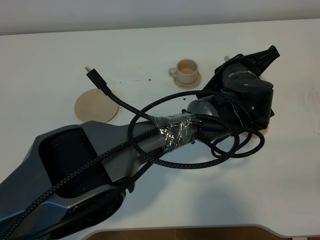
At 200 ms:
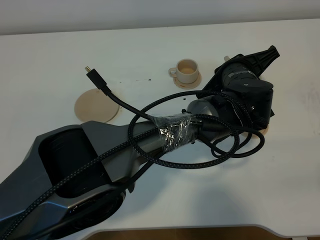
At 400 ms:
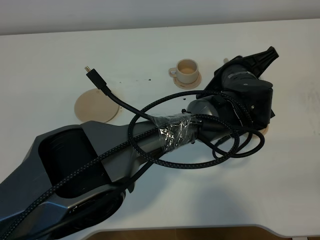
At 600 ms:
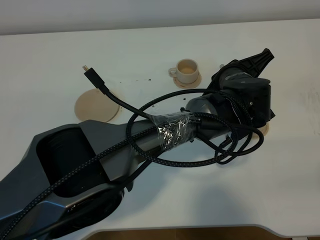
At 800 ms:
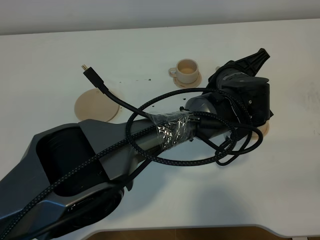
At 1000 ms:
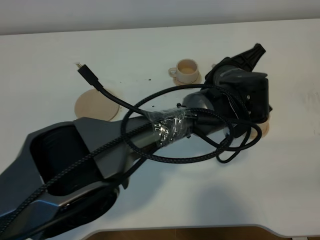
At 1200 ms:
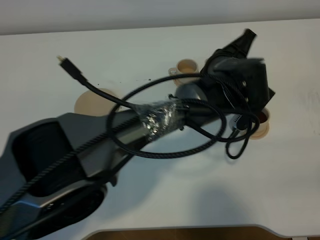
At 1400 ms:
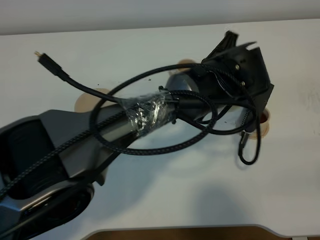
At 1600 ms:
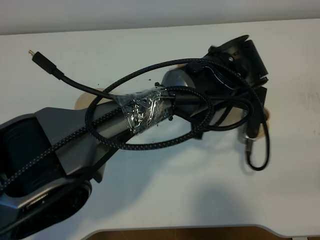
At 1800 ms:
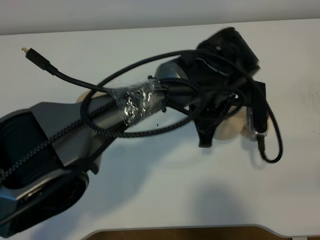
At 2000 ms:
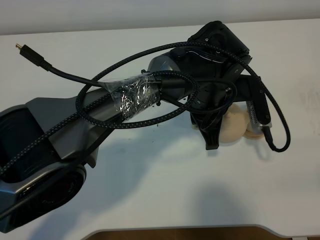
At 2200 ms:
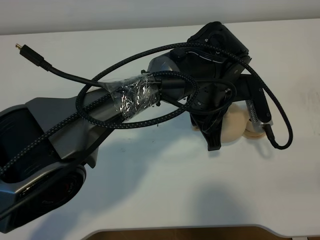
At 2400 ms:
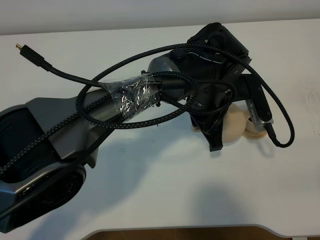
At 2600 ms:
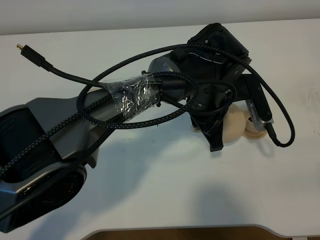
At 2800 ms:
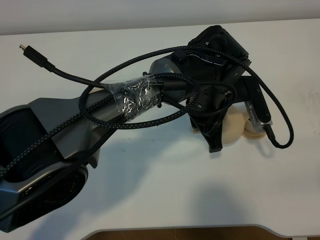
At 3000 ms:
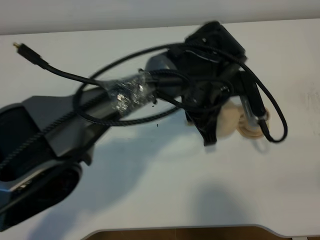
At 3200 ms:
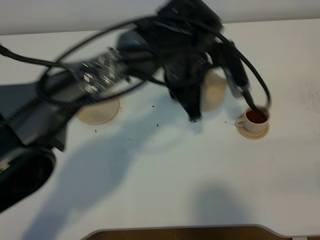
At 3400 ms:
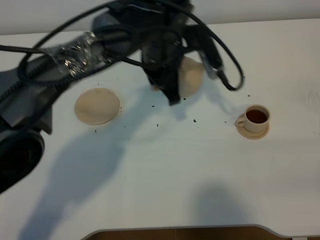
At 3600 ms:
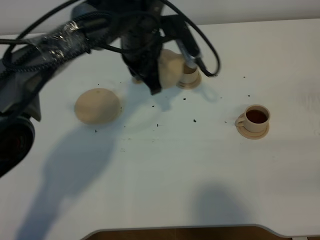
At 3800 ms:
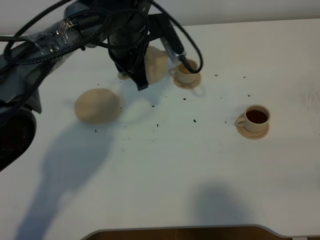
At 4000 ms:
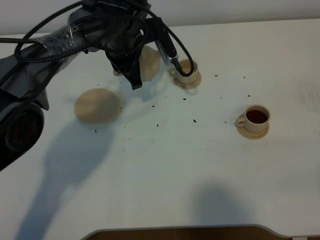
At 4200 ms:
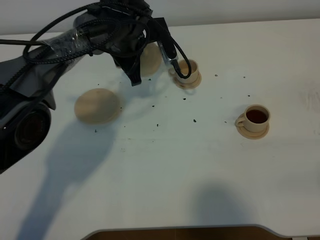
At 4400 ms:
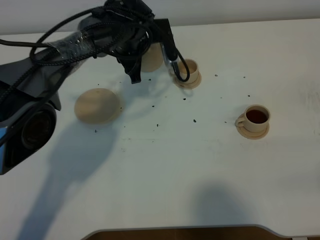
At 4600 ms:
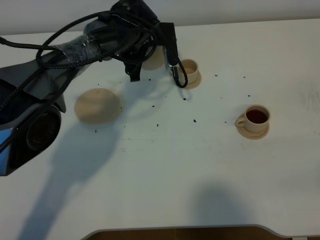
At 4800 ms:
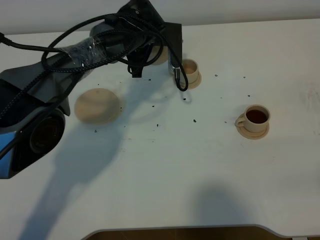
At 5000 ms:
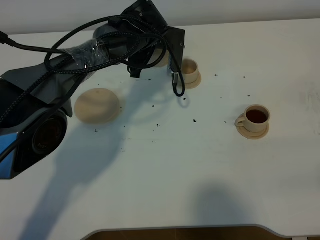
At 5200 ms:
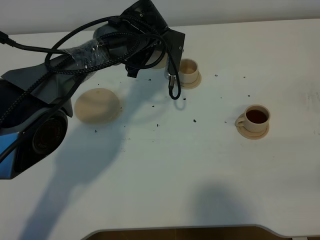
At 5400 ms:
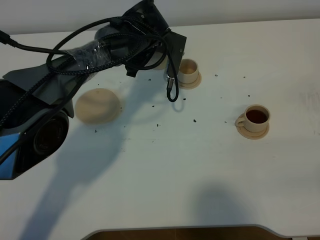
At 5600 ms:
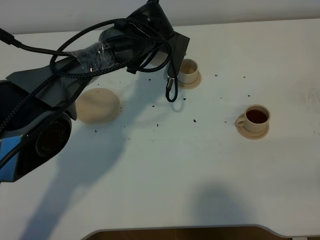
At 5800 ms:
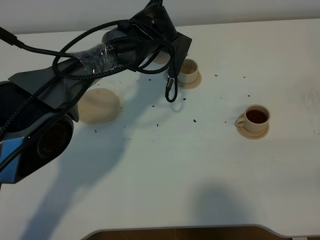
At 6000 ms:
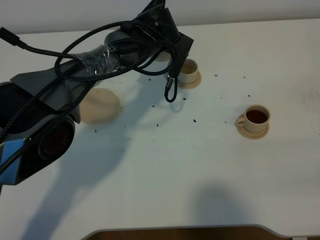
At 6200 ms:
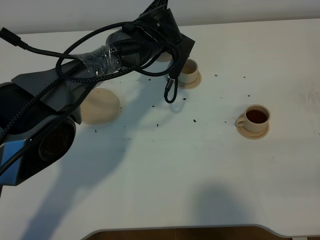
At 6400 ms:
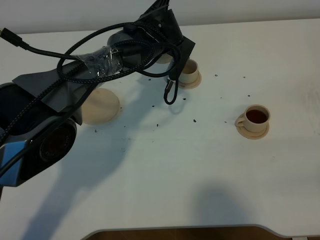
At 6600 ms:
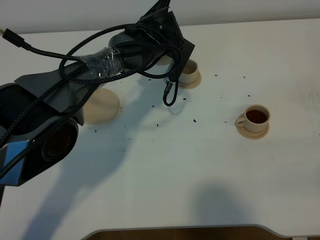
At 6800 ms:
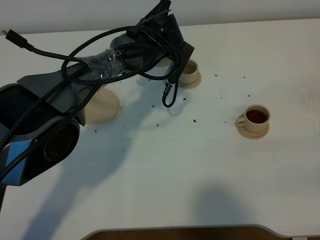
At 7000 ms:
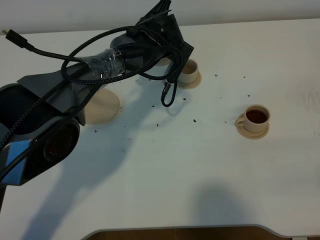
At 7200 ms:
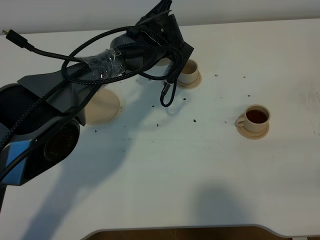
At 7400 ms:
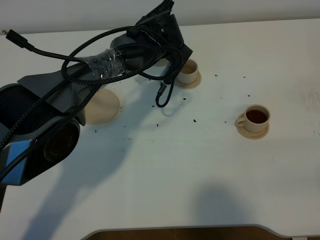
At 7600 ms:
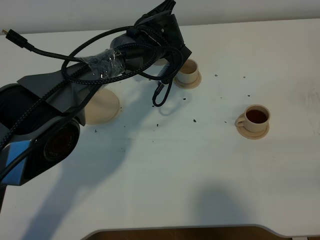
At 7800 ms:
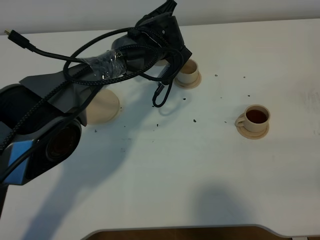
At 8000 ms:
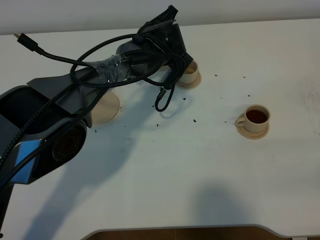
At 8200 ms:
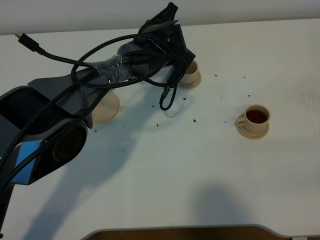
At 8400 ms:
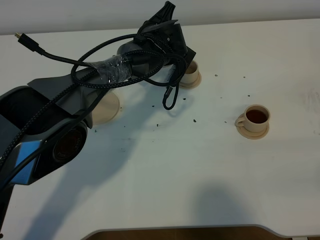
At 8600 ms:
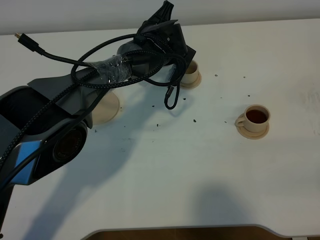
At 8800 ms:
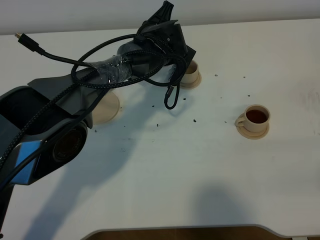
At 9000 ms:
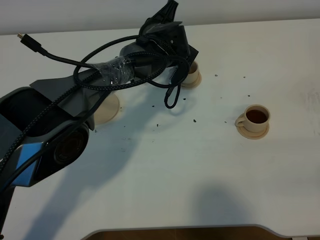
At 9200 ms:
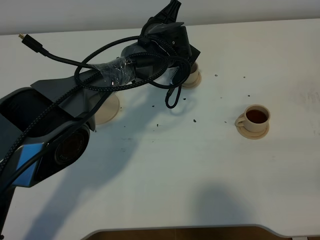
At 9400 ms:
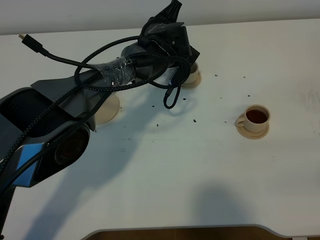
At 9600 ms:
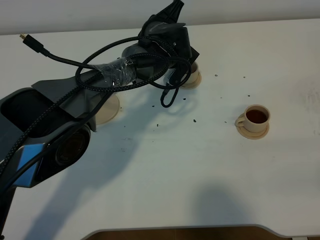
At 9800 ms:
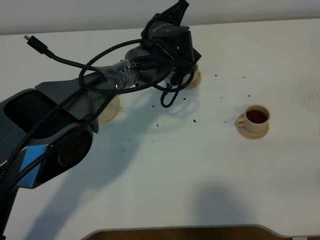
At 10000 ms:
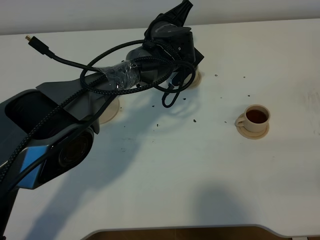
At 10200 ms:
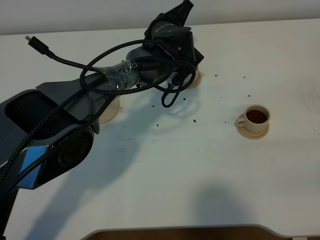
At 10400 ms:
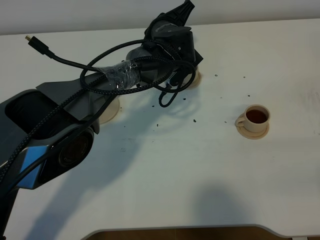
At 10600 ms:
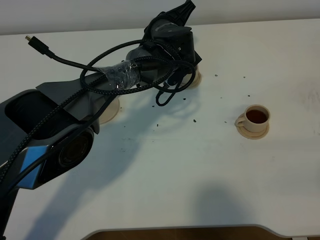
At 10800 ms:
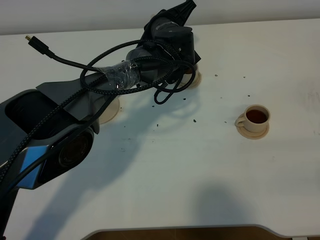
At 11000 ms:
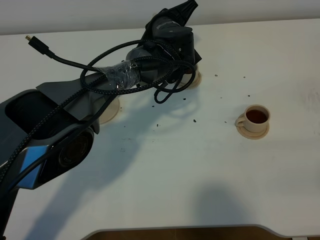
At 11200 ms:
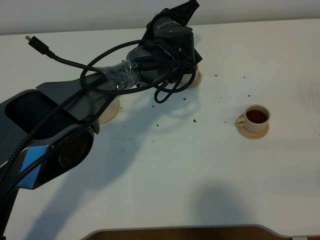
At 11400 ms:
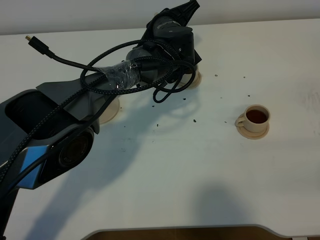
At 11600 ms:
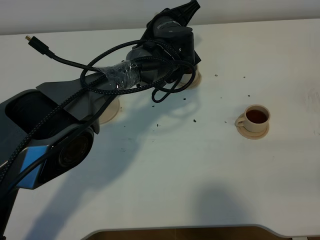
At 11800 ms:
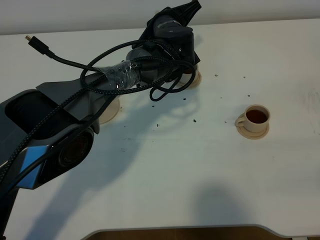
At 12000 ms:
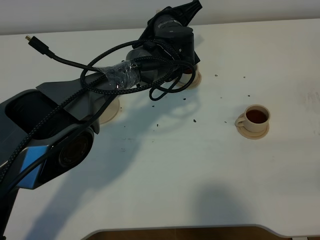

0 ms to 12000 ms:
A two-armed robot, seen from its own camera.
Task of the whole recording: grasp the brown teapot and pour the tea into the two brown teacups one by one, put the brown teapot back in its original place.
0 ms to 1600 ms: The left gripper moves to the left, roughly 5 cm.
3000 ms to 4400 ms: The left gripper moves forward and to the left, approximately 20 cm.
6000 ms to 9000 ms: The grippers stay close to where they were, moving slightly.
9000 ms to 10400 ms: There are only small adjustments of the grippers.
10400 ms to 12000 ms: There are only small adjustments of the grippers.

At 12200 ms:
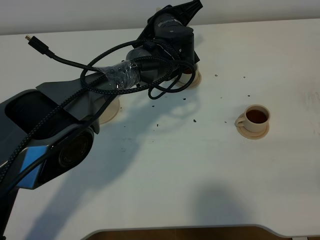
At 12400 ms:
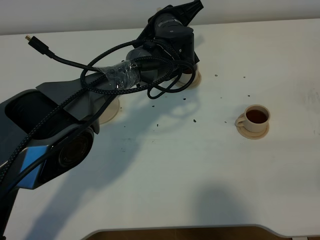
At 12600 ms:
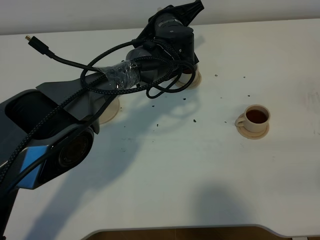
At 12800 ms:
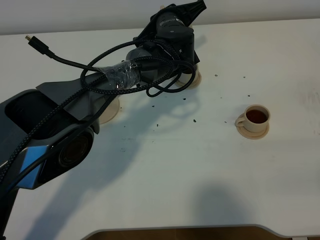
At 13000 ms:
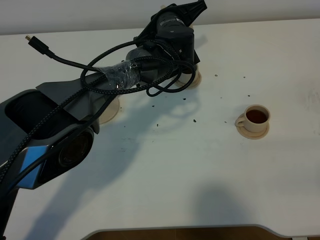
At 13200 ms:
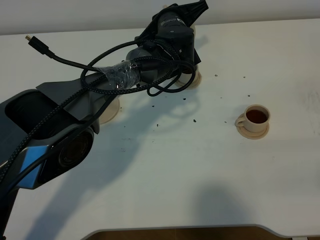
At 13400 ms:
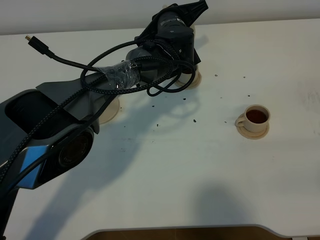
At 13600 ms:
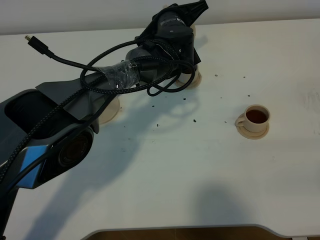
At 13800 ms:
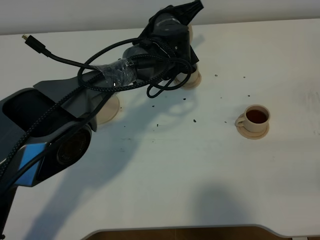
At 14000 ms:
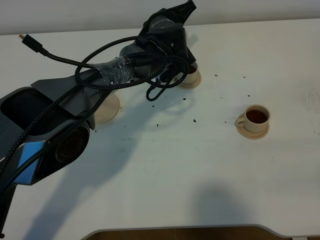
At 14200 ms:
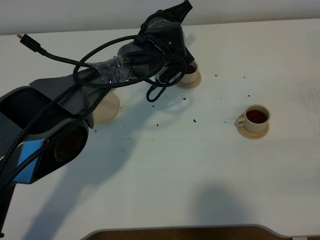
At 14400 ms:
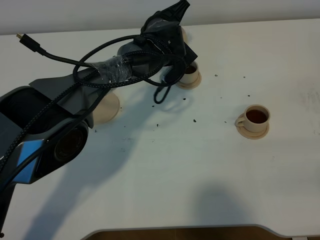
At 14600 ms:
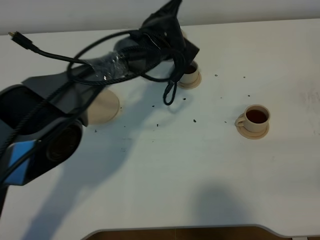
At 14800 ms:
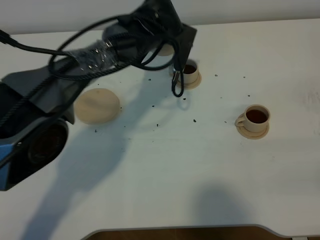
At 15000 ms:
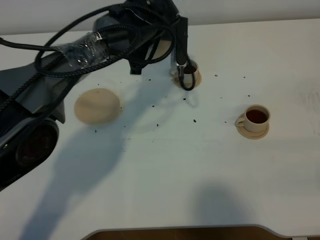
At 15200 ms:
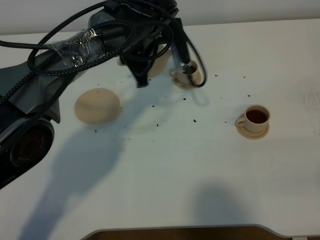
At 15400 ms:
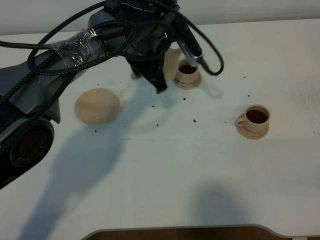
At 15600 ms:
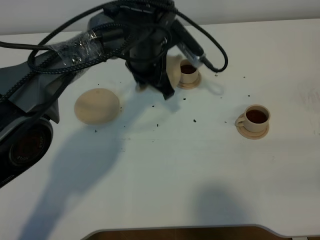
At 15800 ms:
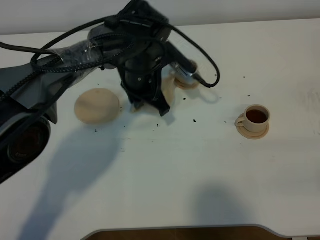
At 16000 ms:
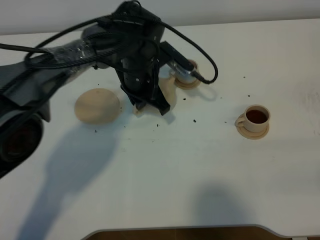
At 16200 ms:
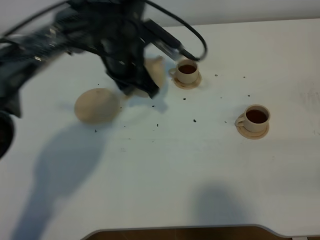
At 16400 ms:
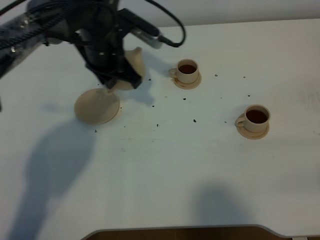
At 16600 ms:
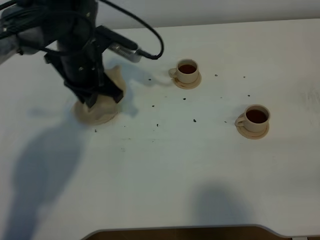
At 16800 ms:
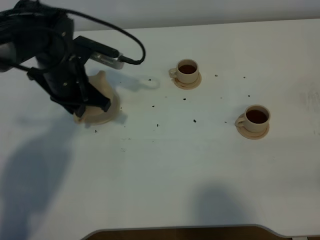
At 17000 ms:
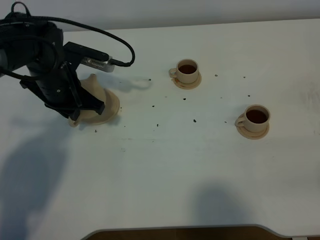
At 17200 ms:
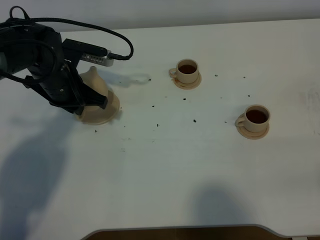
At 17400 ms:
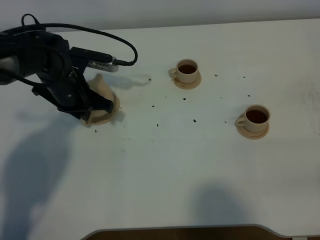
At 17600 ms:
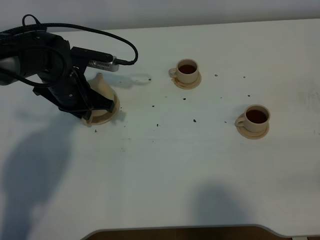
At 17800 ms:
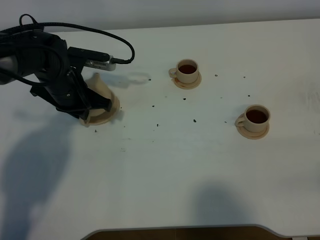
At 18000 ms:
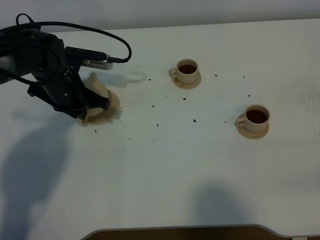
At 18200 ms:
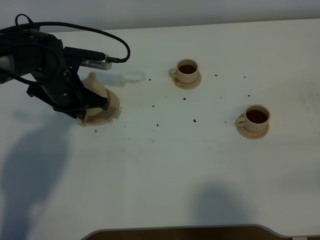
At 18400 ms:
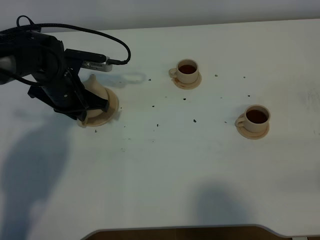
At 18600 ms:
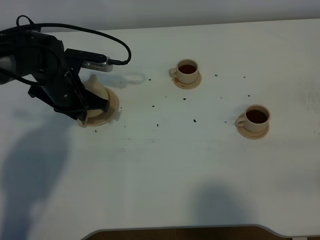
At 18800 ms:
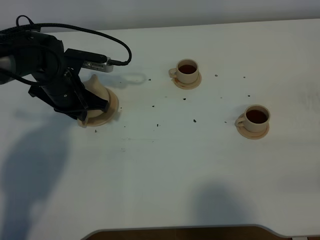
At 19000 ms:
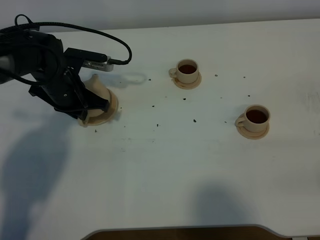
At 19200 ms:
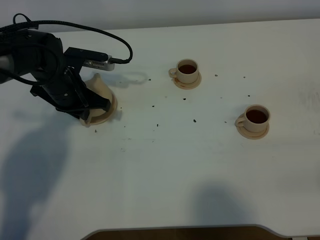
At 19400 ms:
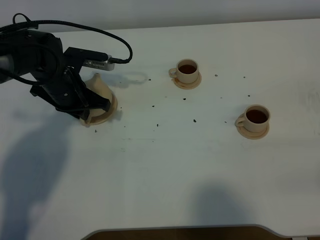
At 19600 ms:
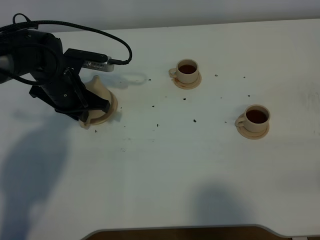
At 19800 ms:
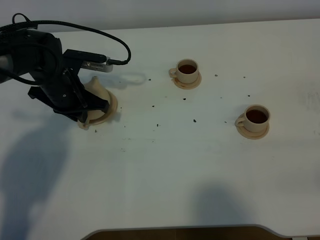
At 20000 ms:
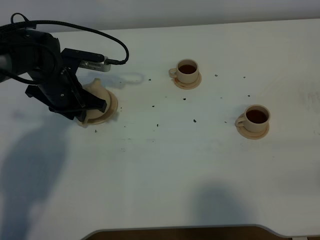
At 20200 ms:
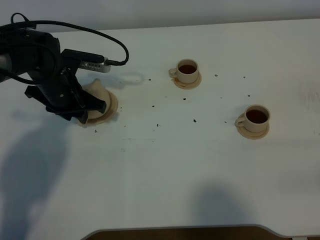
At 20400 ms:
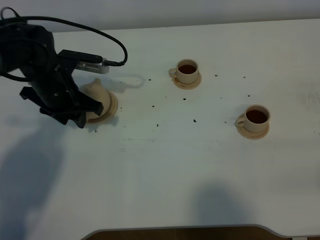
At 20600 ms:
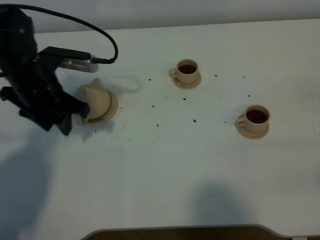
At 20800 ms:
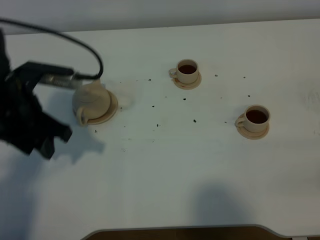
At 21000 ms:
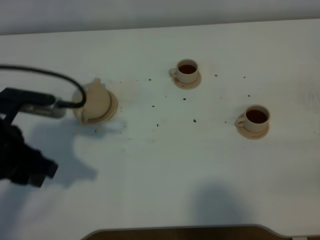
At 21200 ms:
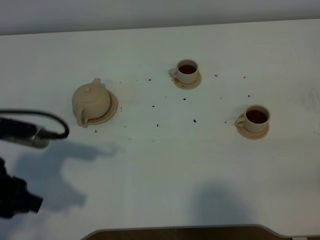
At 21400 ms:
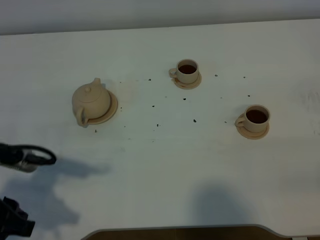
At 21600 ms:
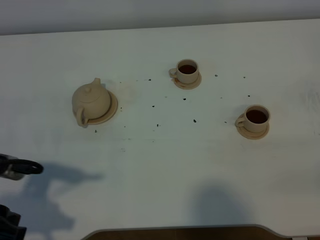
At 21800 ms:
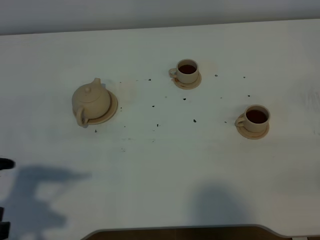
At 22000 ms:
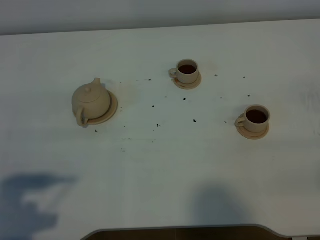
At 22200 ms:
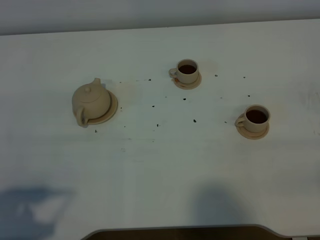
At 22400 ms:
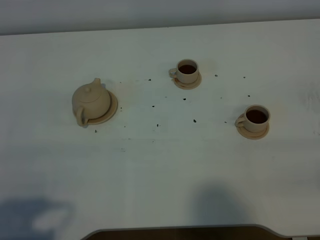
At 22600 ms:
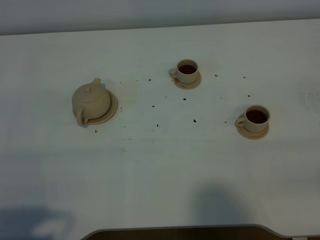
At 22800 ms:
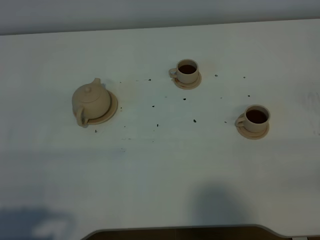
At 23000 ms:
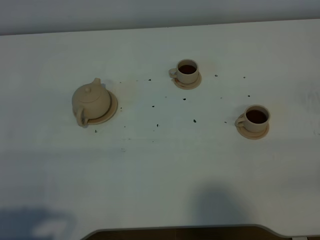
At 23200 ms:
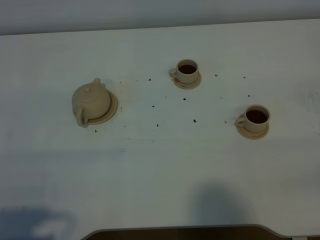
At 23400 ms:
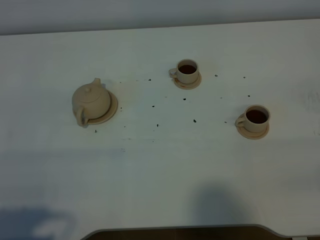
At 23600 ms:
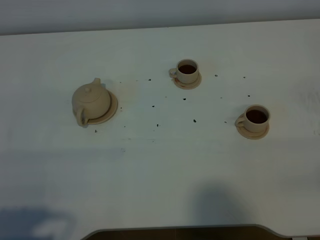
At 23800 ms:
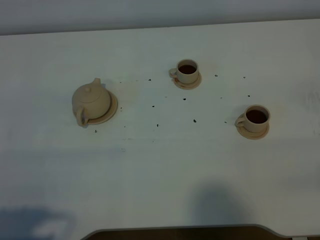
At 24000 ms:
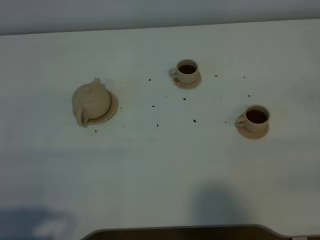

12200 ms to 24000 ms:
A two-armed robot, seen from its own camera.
Task of the whole recording: grasp the brown teapot and pour the tea into the two brown teacups one by one, put the brown teapot back in its original place.
Step, 12200 ms to 14800 ms: Pour tea into the teacup with the left gripper.
12200 ms to 13600 ms: The grippers move only a little.
13600 ms to 15200 ms: The left gripper goes about 5 cm to the left.
15200 ms to 16600 ms: The left gripper shifts approximately 10 cm to the left.
16600 ms to 18200 ms: The left gripper moves downward and to the left, approximately 10 cm.
18200 ms to 19600 ms: Both grippers stay about where they are.
19600 ms to 21000 ms: The left gripper shifts approximately 20 cm backward and upward, and opens its fingers.
21000 ms to 22600 ms: The left gripper shifts about 20 cm backward.
22600 ms to 24000 ms: The two grippers keep their place.
